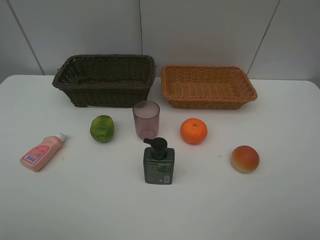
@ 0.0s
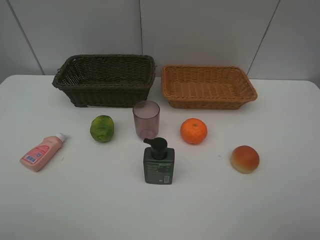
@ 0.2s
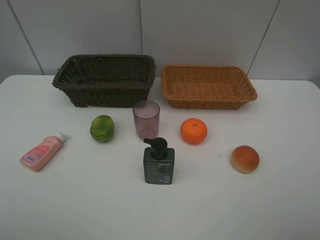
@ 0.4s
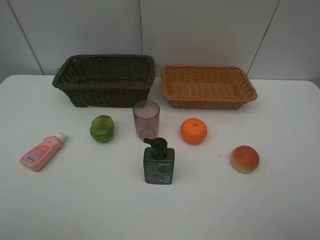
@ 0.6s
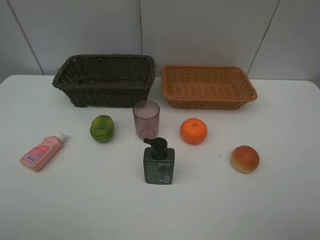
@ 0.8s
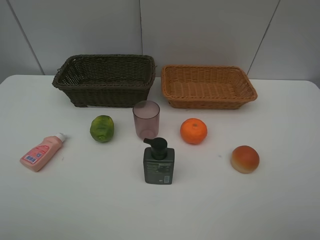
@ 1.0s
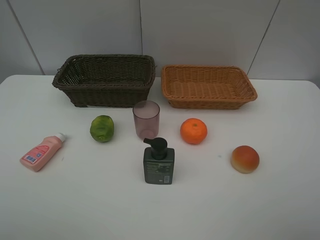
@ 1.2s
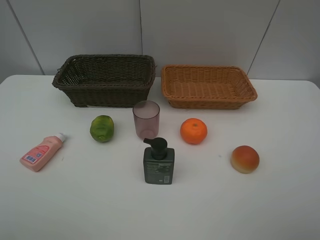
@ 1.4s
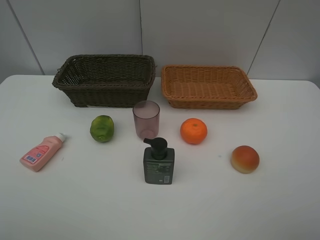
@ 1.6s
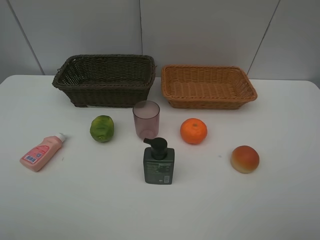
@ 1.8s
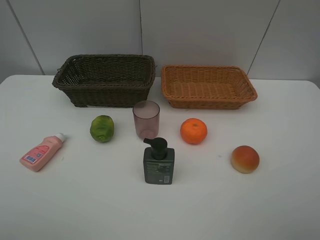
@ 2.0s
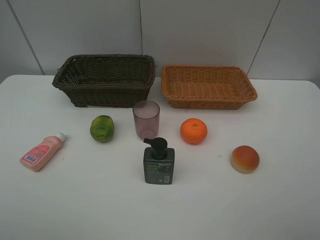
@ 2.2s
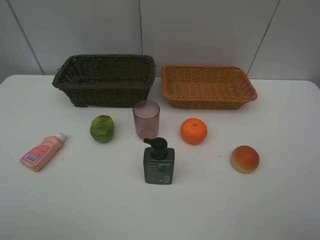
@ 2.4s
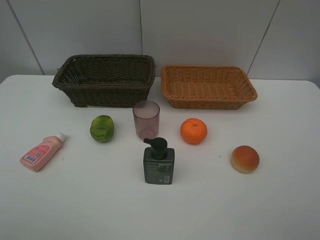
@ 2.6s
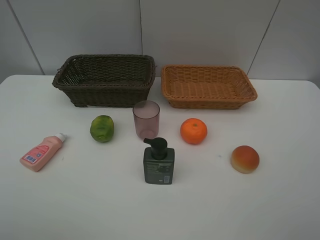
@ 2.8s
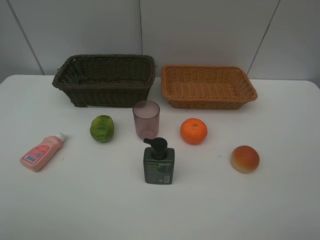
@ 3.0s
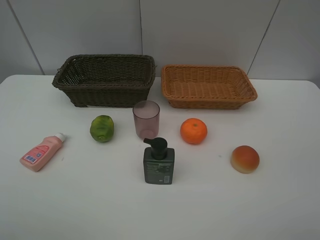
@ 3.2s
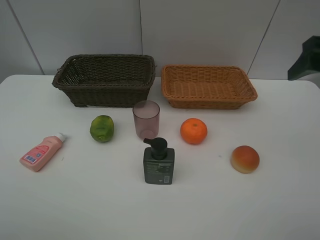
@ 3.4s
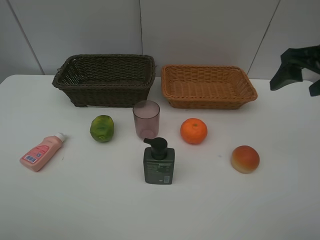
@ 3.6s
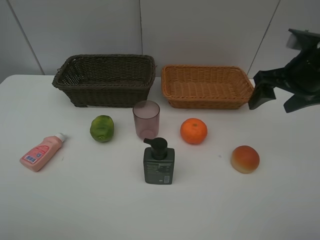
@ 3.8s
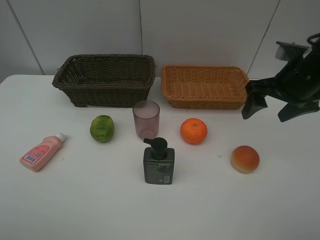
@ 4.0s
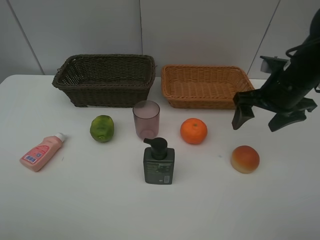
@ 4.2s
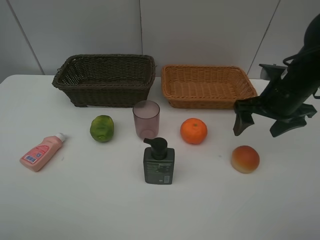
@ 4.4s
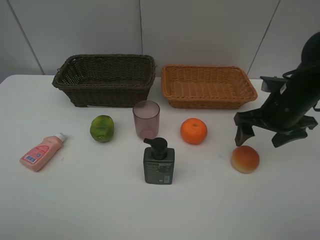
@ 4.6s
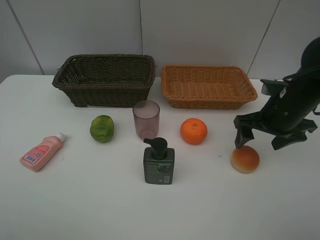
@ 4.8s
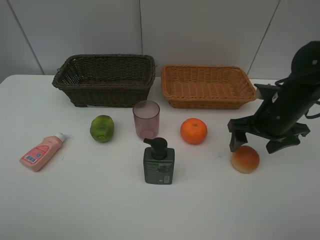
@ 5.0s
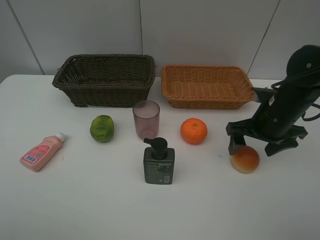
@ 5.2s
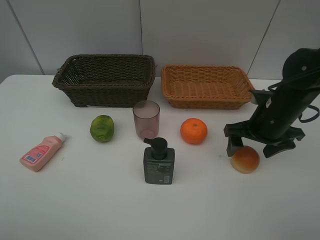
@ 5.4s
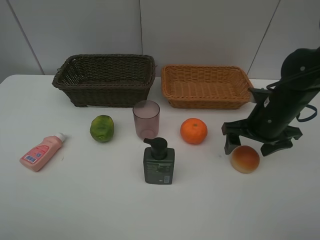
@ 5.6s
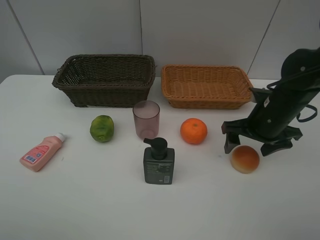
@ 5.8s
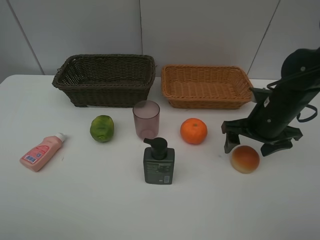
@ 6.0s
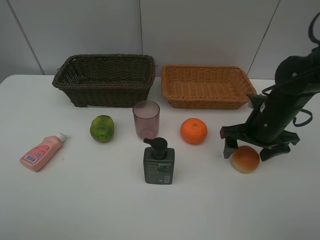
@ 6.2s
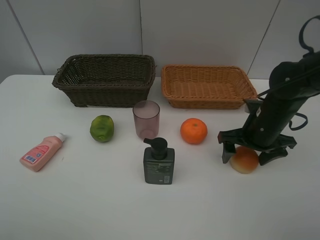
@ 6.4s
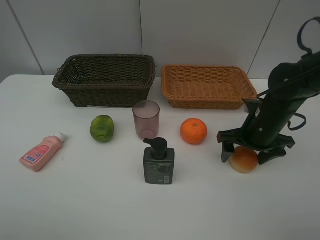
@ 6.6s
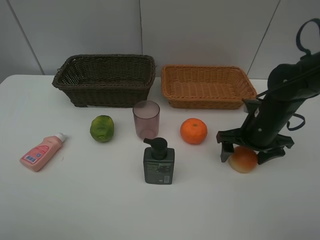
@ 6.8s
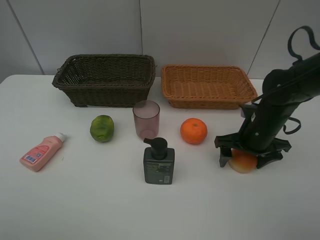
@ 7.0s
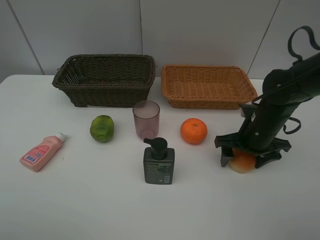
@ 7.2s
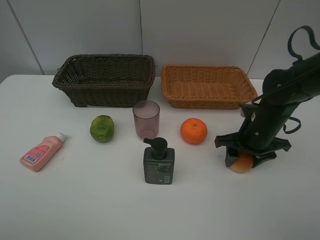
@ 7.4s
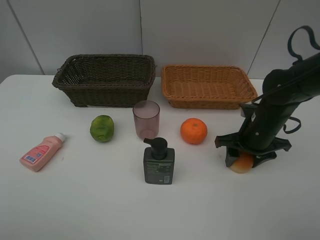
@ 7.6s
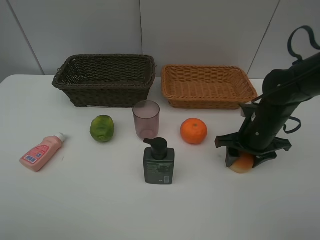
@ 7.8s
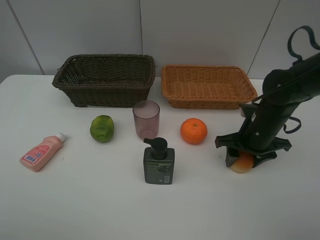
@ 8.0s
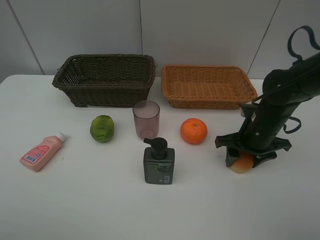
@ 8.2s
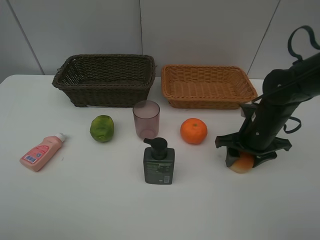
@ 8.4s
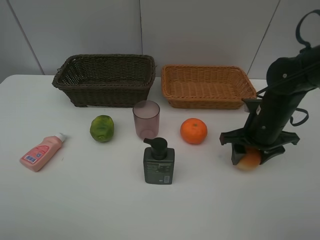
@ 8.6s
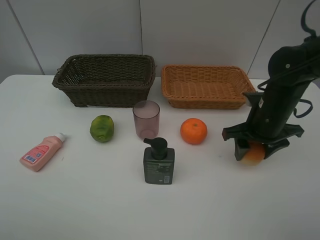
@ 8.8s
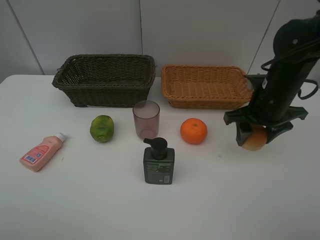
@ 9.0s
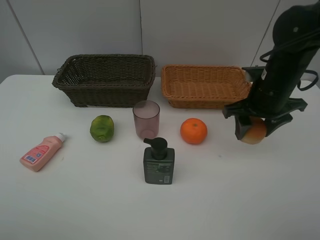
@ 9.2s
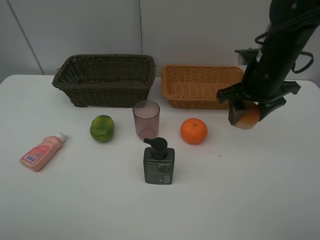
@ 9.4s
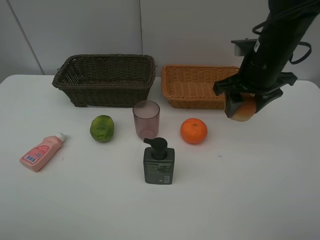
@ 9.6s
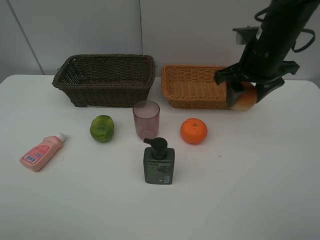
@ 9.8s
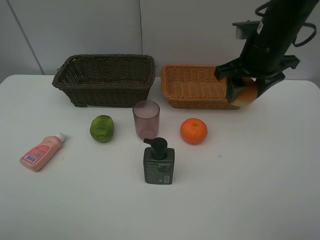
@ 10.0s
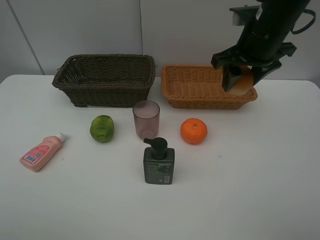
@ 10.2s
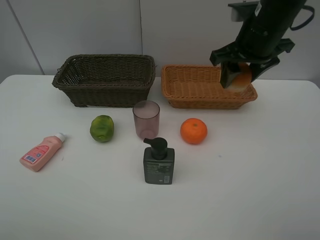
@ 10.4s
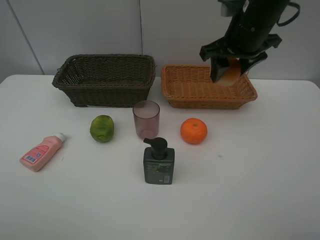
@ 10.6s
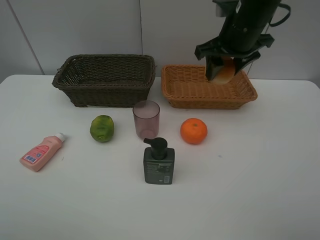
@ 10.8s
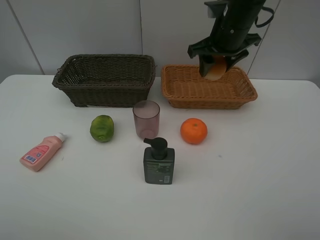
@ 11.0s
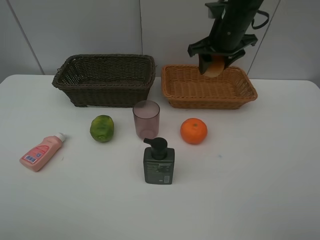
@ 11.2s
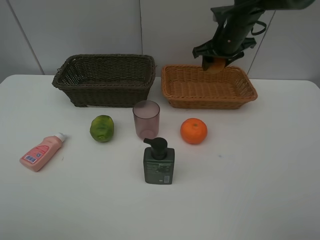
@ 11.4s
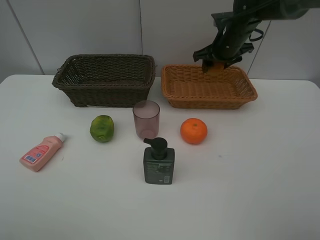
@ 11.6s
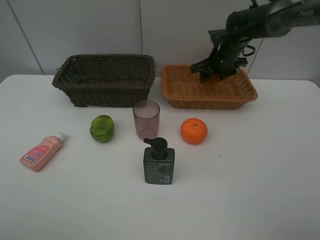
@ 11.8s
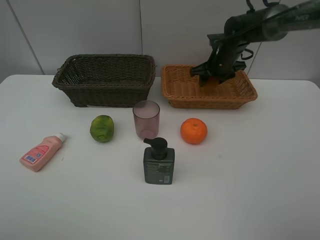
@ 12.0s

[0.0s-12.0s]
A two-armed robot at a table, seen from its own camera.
Task of the whole recording: place multiple objects separately in different baskets.
0.0s to 1.6s: Both grippers stay put.
3.0s to 4.4s: The right gripper travels downward and forward by about 25 cm.
4.4s to 6.0s: The right gripper changes place by approximately 5 cm.
6.0s to 7.6s: The right gripper closes its fingers.
7.6s to 9.0s: The right gripper goes approximately 5 cm upward.
9.0s to 10.4s: The right gripper is displaced upward by approximately 10 cm.
10.4s to 12.0s: The right gripper travels forward and downward by some 20 cm.

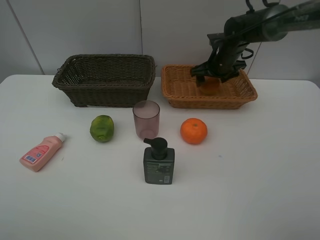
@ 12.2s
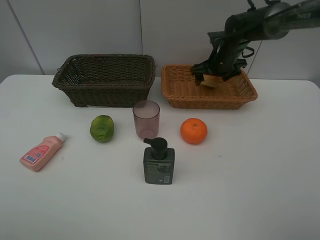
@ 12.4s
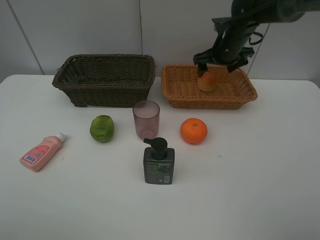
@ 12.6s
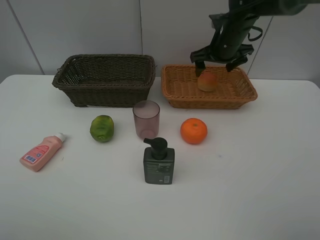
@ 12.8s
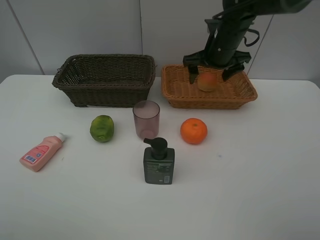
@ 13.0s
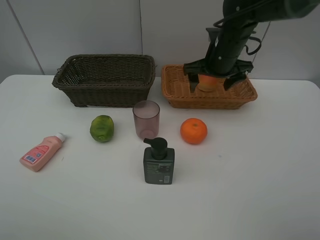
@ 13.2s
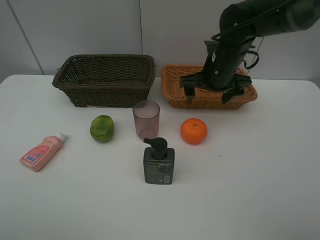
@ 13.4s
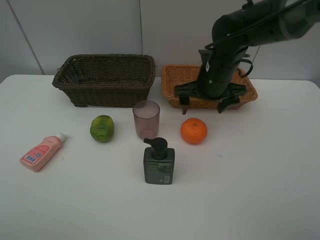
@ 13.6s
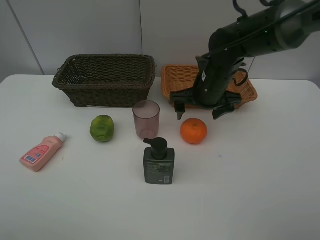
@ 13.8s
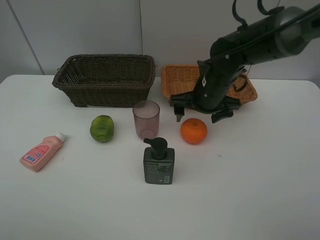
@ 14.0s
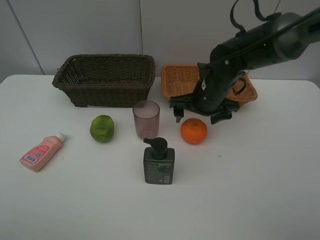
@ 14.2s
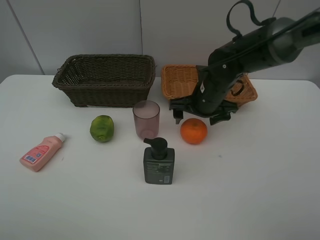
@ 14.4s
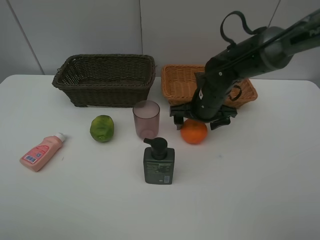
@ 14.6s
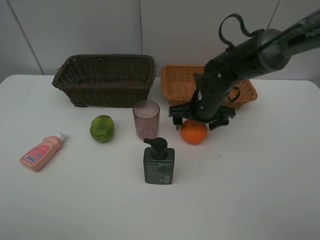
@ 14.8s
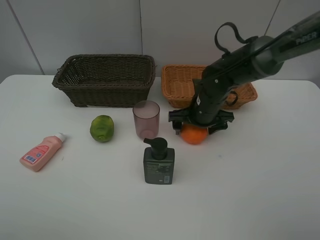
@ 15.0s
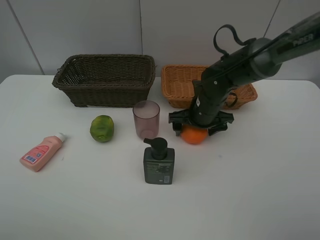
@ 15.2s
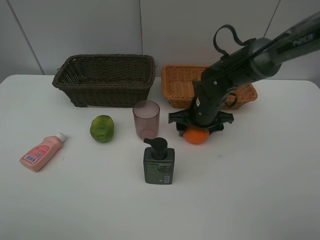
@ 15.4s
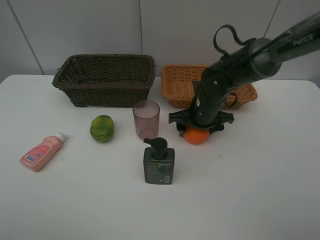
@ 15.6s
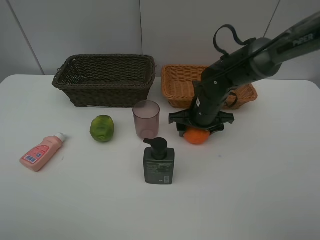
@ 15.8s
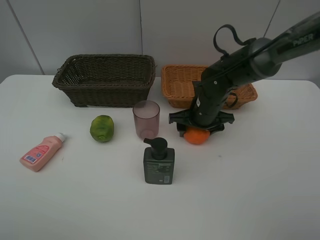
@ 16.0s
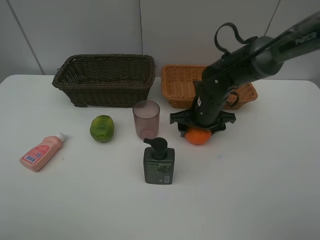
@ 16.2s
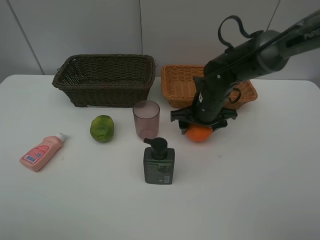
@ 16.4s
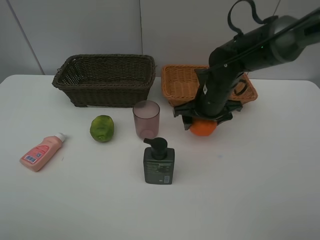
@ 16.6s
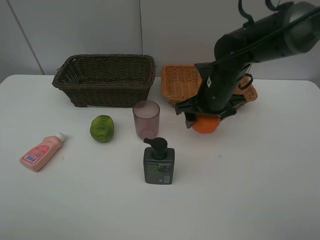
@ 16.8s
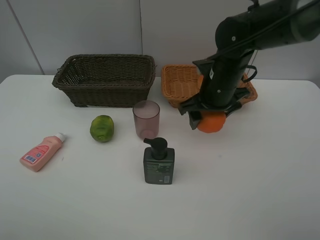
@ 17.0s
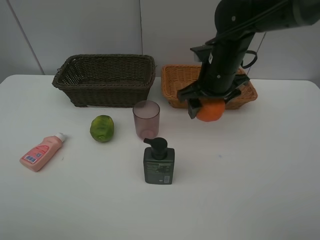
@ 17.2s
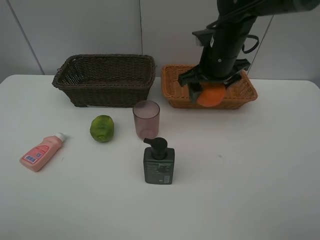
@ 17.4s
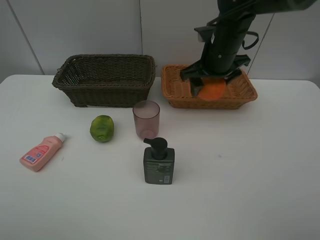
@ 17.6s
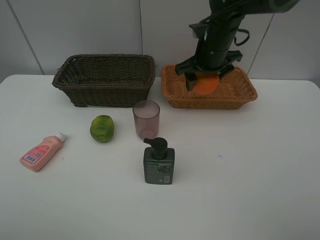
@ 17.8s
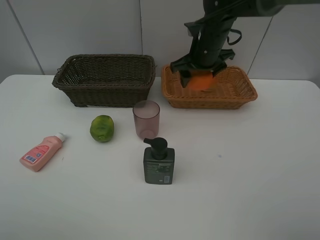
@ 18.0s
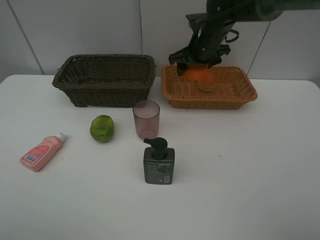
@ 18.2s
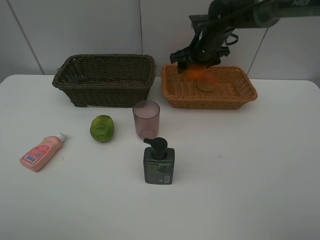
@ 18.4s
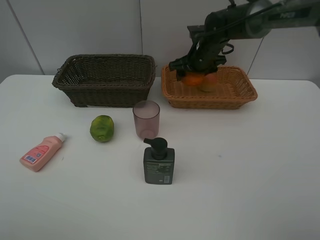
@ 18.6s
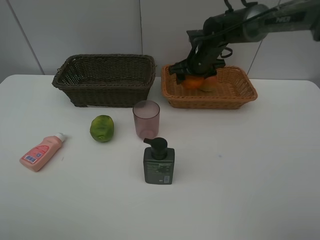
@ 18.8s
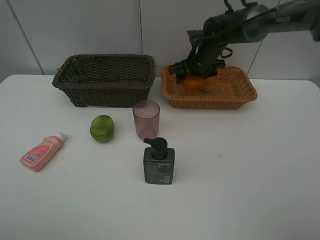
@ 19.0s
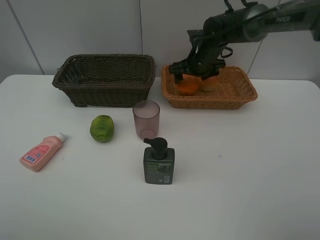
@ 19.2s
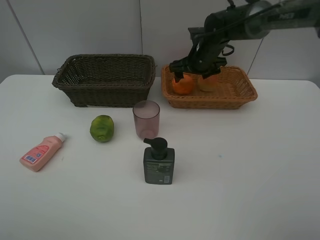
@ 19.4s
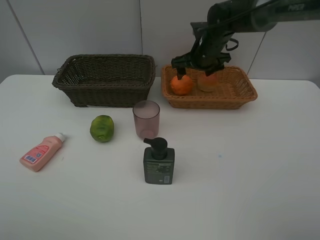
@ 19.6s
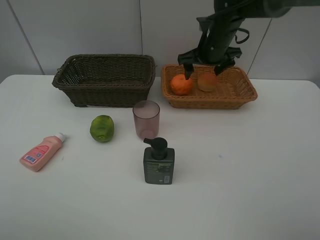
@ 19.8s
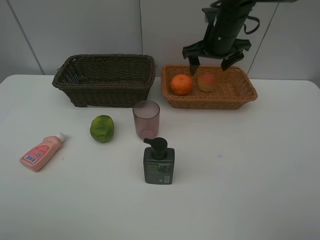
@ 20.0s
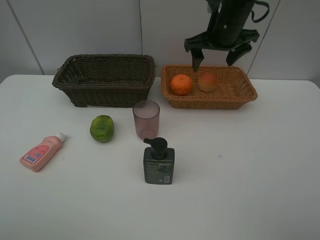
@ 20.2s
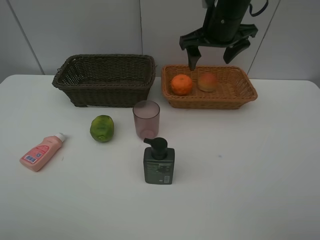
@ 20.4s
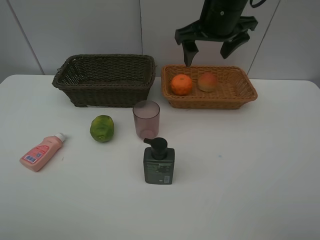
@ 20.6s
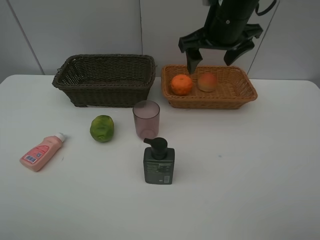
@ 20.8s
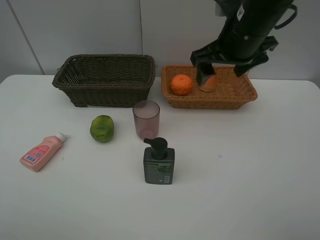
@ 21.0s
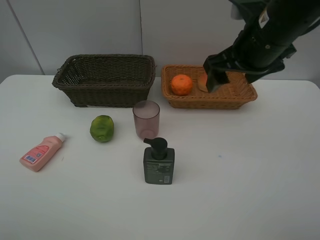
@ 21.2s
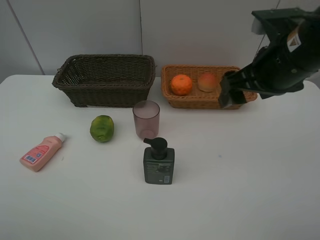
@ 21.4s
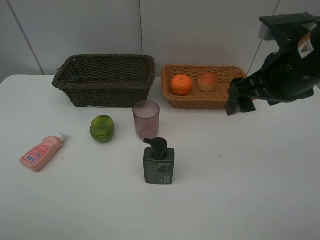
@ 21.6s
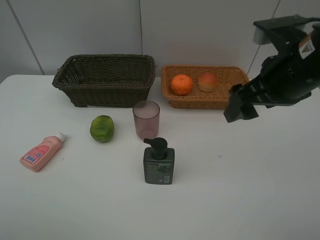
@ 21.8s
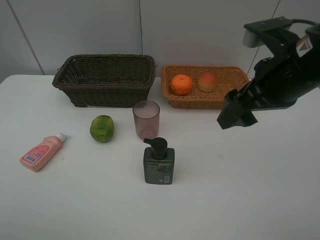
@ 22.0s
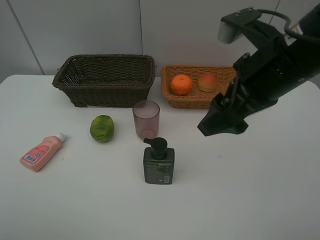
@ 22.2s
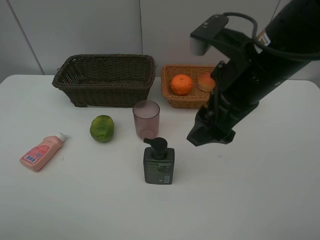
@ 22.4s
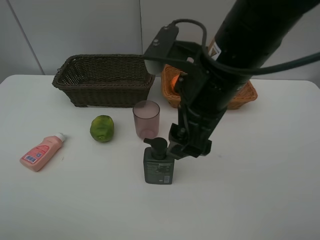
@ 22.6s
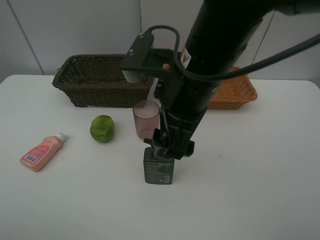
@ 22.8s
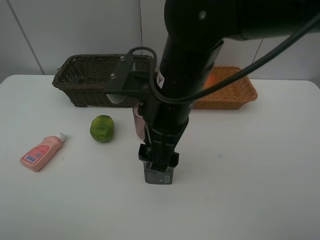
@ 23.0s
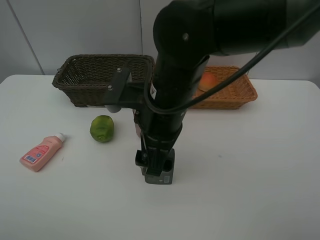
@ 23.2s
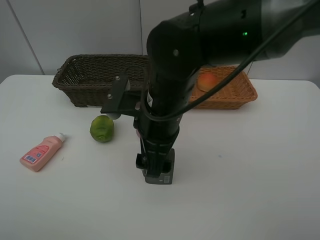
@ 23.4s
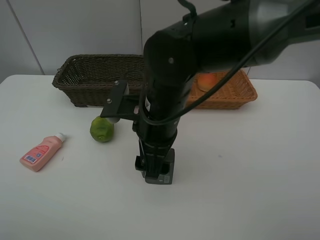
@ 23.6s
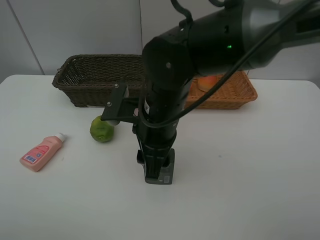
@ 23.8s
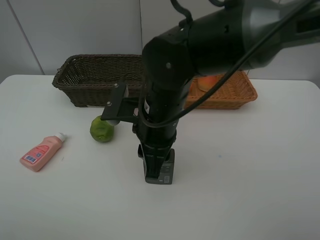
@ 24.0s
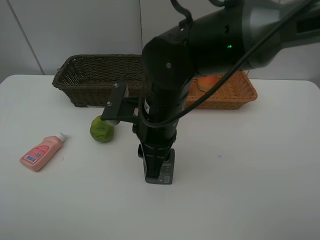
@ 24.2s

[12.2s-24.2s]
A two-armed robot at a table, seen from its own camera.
Task of the whole recording: place multiple objects separately in different baskets.
12.2s to 13.8s: The right gripper travels backward and to the left by roughly 15 cm.
13.8s to 15.2s: The right gripper is displaced downward by roughly 5 cm.
15.2s to 16.6s: The right gripper closes.
16.6s to 18.2s: The right gripper is displaced forward and upward by approximately 15 cm.
18.2s to 19.8s: The grippers move only a little.
19.8s to 21.2s: The right gripper moves backward, some 15 cm.
21.2s to 22.6s: The right gripper is displaced to the left and backward by some 10 cm.
22.6s to 24.2s: The right gripper moves downward and to the left, some 10 cm, and closes.
